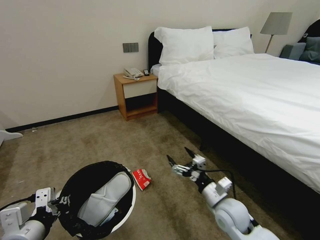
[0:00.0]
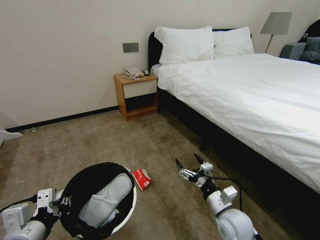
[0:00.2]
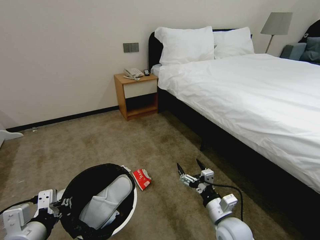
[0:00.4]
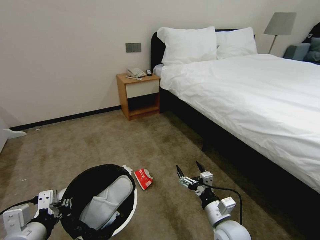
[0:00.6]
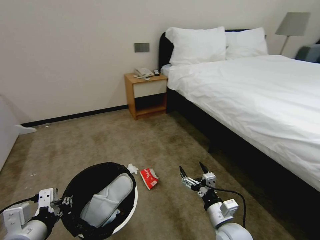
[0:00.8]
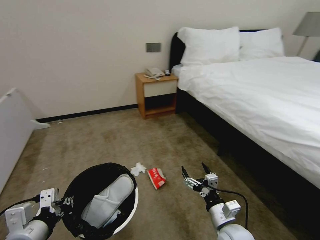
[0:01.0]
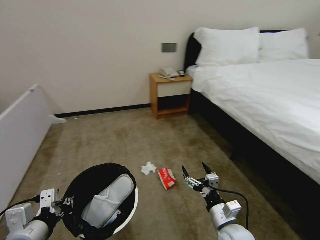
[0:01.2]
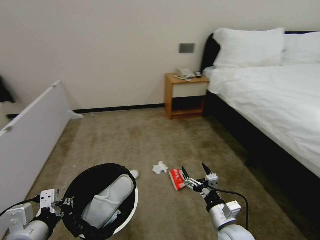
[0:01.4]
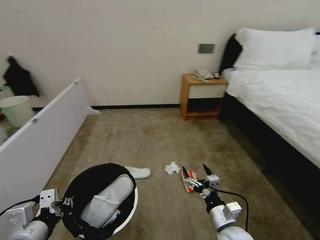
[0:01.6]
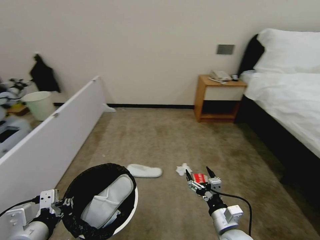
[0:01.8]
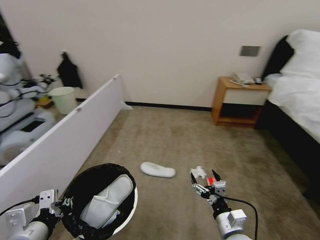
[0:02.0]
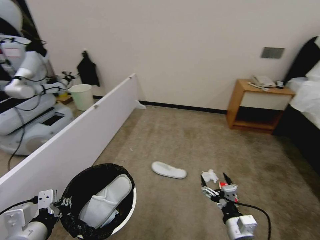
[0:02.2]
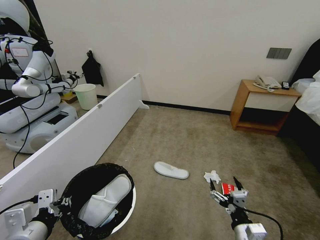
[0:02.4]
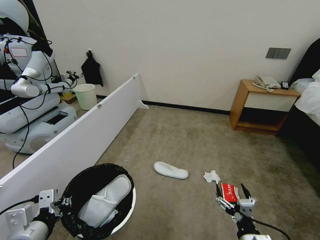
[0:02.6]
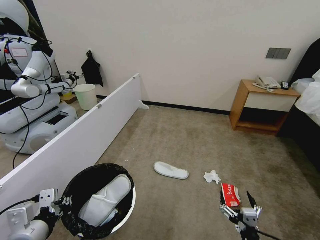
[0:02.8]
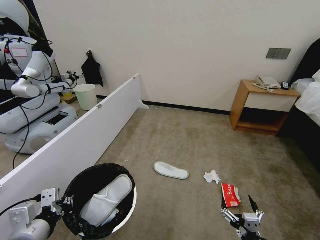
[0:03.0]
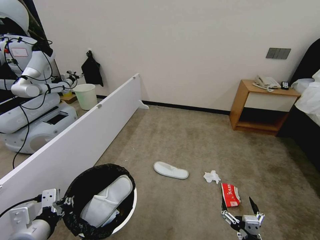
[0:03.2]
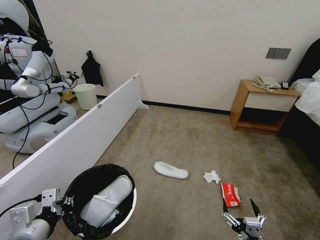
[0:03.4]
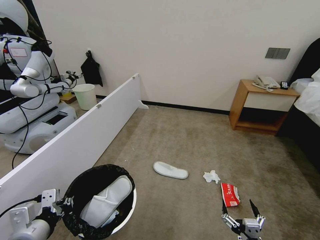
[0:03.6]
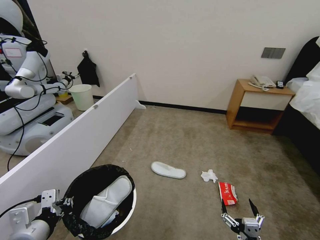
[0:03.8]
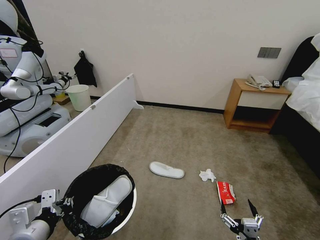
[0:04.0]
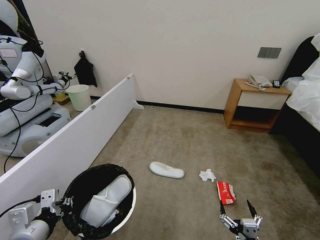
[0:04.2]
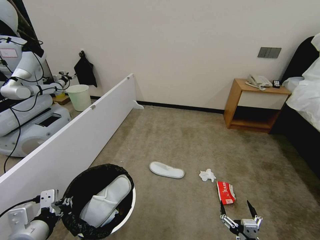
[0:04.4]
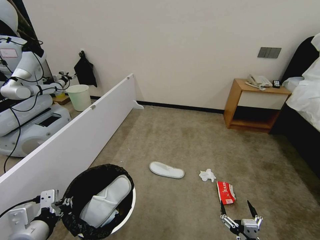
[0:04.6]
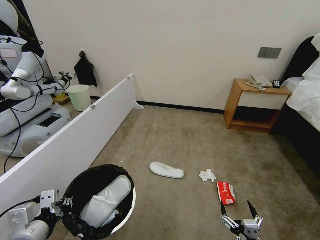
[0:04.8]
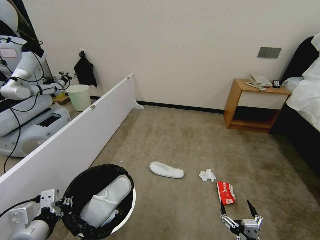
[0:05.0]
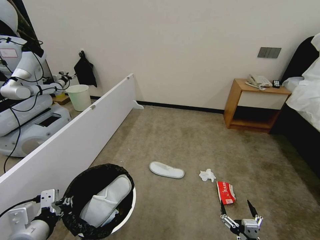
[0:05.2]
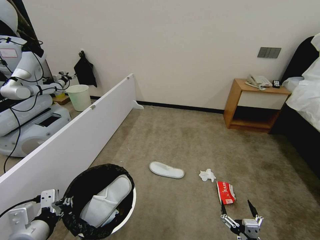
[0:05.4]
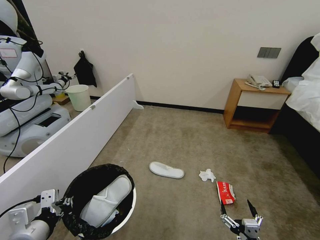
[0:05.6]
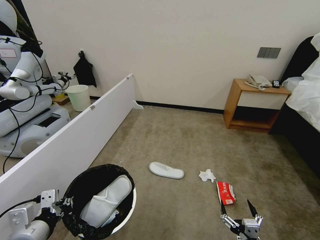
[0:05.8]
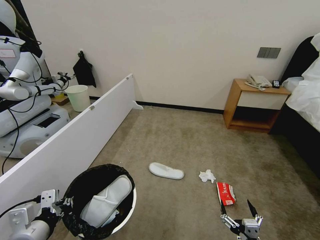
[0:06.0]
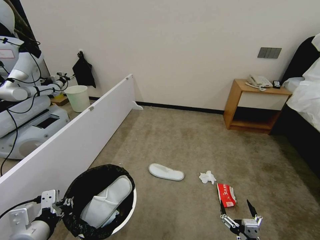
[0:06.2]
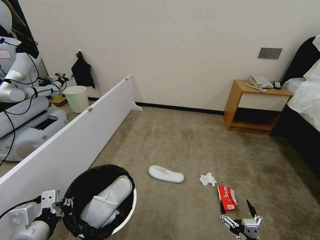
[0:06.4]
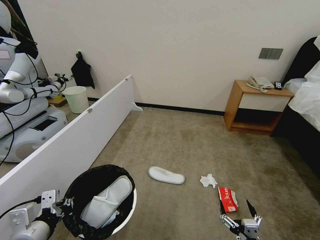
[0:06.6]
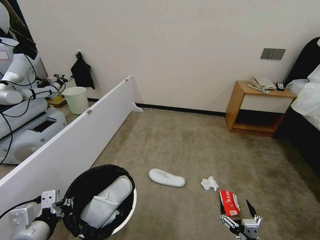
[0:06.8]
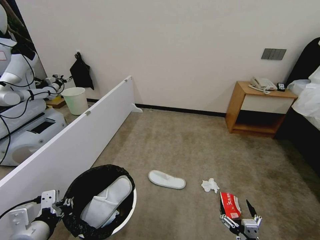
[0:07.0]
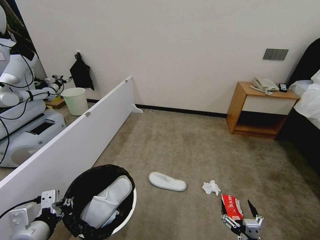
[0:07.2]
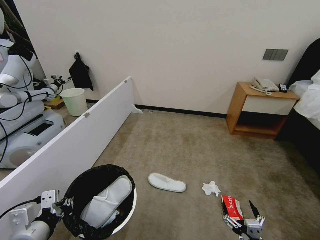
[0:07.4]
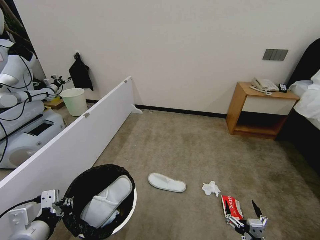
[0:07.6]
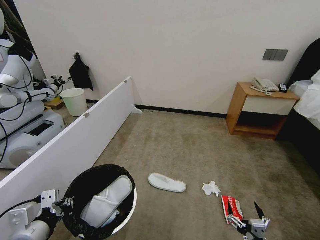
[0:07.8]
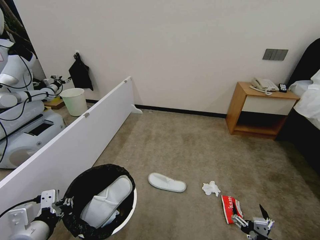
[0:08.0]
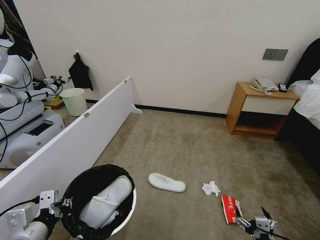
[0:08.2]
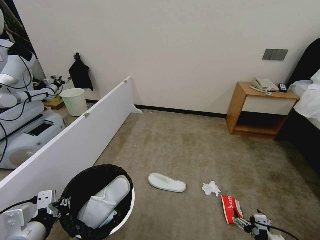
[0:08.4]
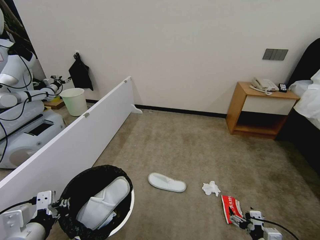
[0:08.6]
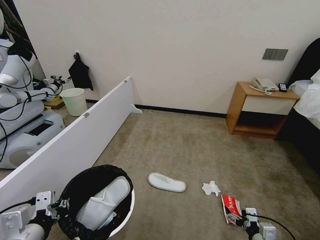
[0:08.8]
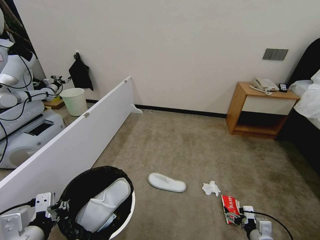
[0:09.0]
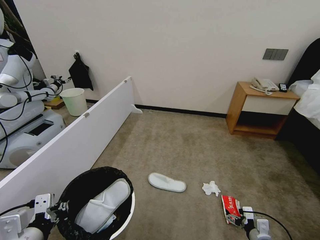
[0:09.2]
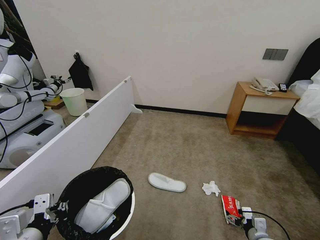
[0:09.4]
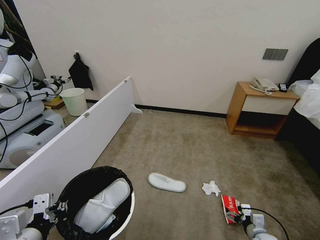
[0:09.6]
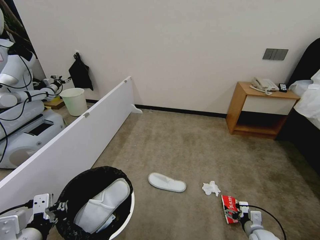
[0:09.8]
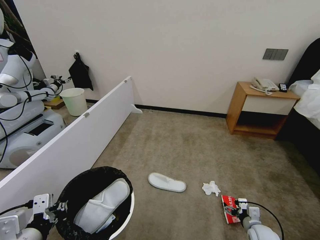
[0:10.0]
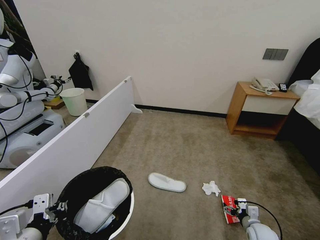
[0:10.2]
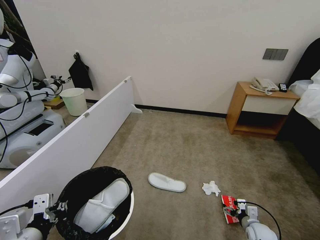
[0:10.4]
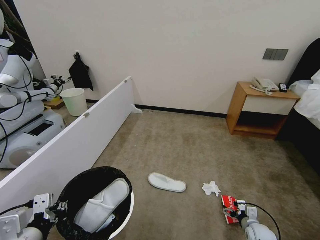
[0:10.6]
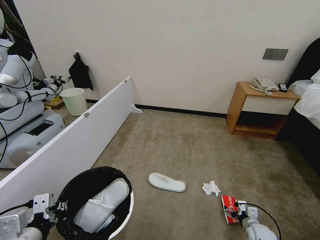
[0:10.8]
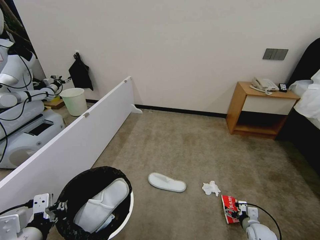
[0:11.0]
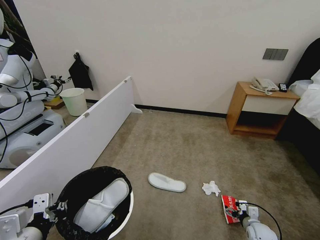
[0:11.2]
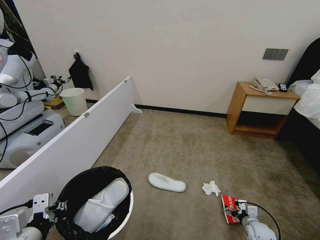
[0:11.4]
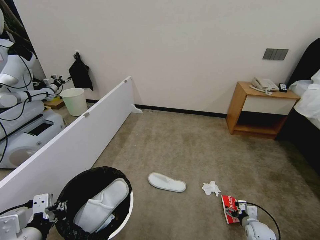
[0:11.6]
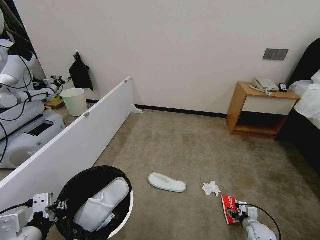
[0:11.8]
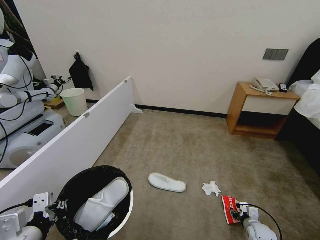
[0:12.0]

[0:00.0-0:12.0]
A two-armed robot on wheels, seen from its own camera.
Task of the whole recording: Pick up the trash bin, then pick up the garbage from the floor and place it into the trash bin.
0:00.0 to 0:01.6: The right gripper shifts about 5 cm backward.
0:01.6 to 0:03.0: The right gripper shifts some 15 cm backward and to the right.
0:03.0 to 0:04.4: The grippers make only small movements.
0:04.4 to 0:06.0: The two grippers keep their place.
0:06.0 to 0:07.6: The grippers stay close to where they were, moving slightly.
0:07.6 to 0:09.0: The right gripper moves forward and to the right, roughly 15 cm.
0:09.0 to 0:10.4: The right gripper goes about 10 cm forward and downward.
0:10.4 to 0:12.0: The right gripper closes.

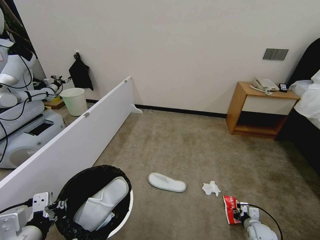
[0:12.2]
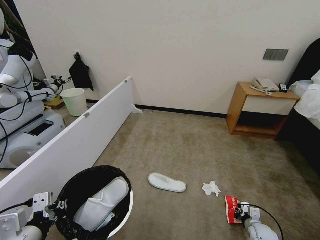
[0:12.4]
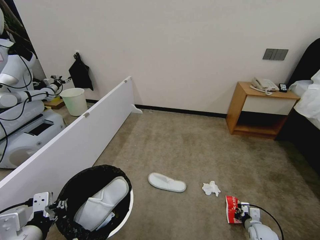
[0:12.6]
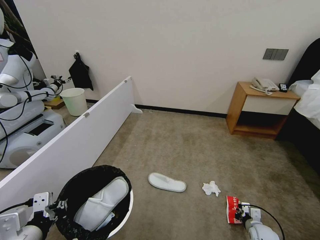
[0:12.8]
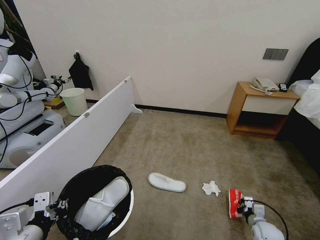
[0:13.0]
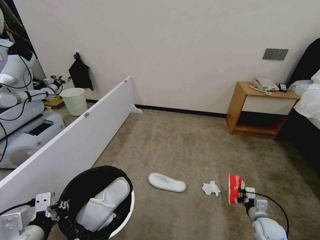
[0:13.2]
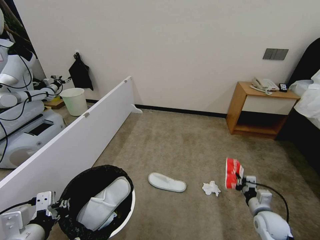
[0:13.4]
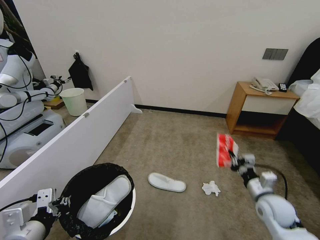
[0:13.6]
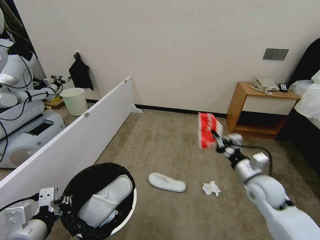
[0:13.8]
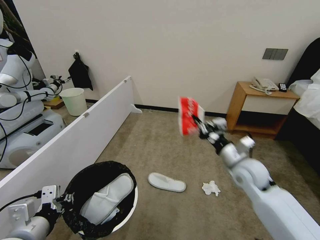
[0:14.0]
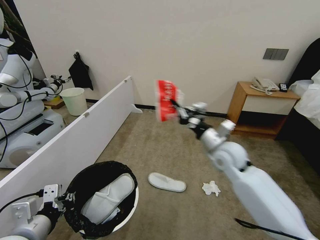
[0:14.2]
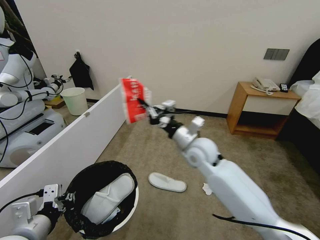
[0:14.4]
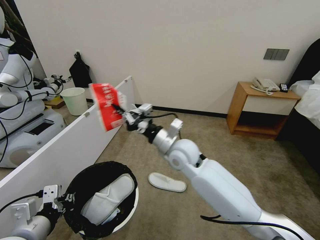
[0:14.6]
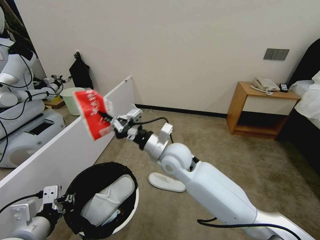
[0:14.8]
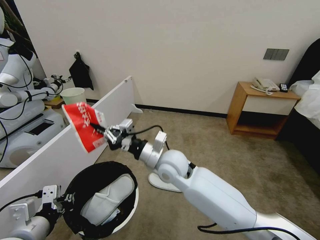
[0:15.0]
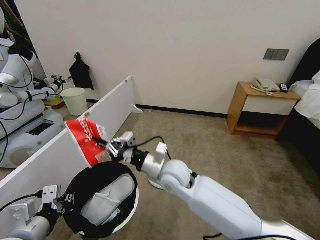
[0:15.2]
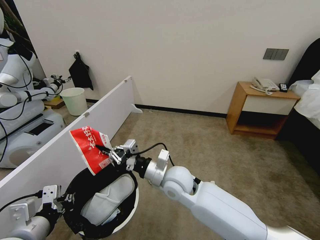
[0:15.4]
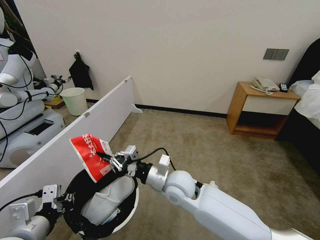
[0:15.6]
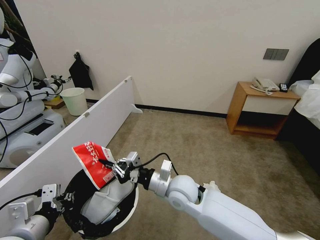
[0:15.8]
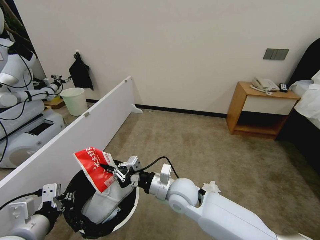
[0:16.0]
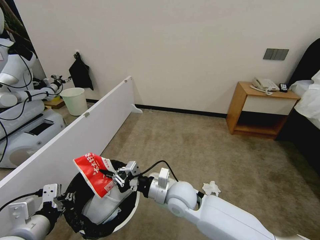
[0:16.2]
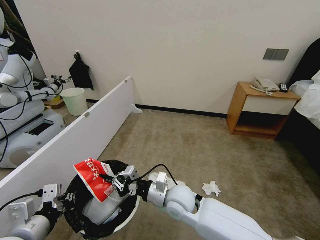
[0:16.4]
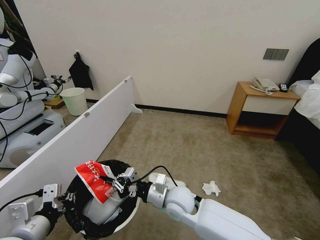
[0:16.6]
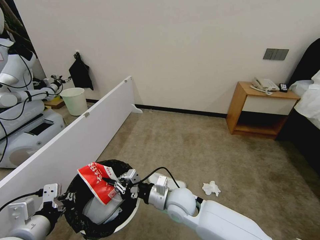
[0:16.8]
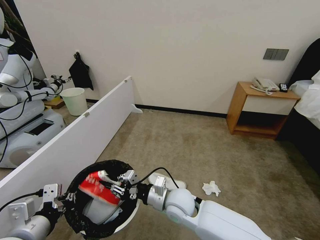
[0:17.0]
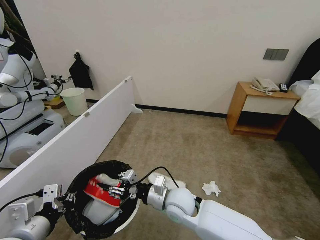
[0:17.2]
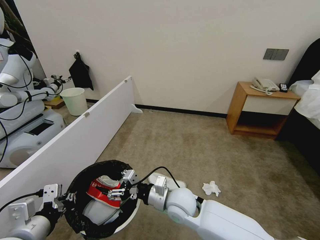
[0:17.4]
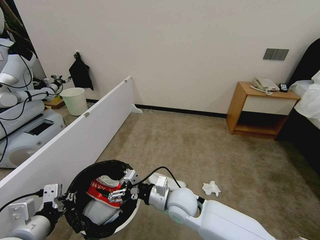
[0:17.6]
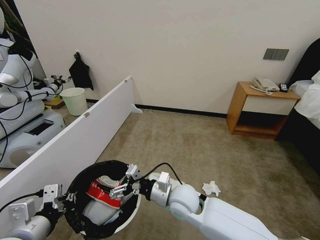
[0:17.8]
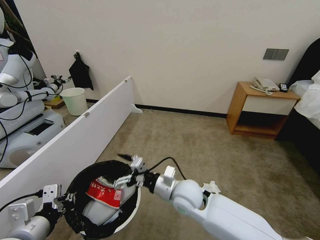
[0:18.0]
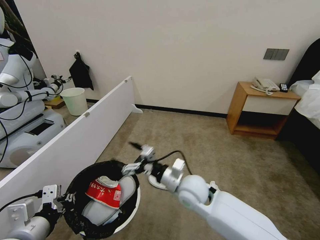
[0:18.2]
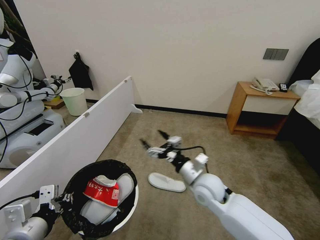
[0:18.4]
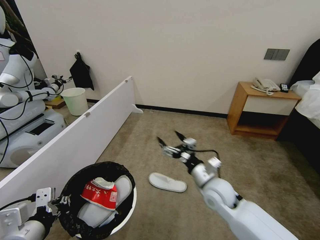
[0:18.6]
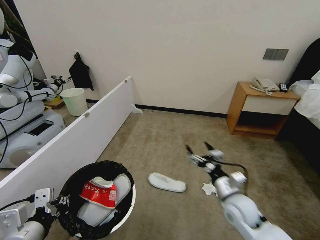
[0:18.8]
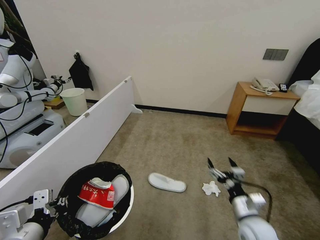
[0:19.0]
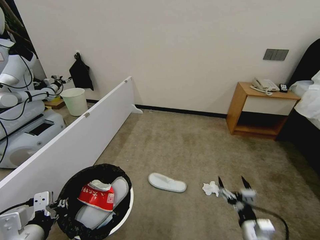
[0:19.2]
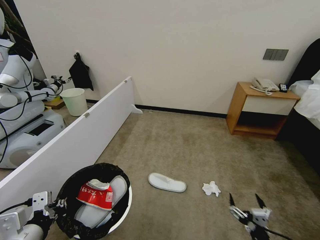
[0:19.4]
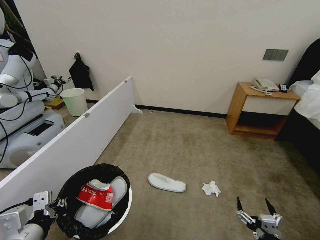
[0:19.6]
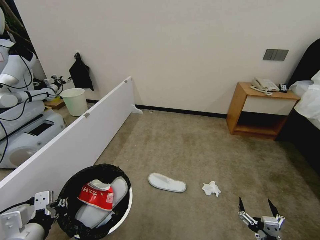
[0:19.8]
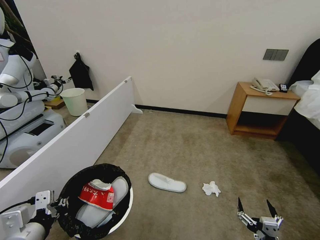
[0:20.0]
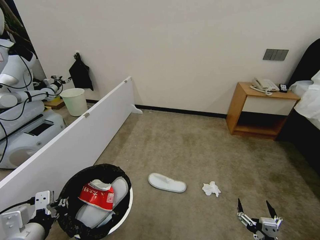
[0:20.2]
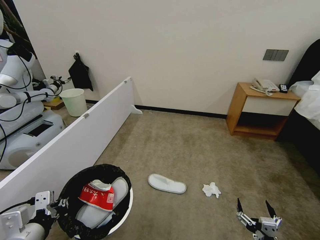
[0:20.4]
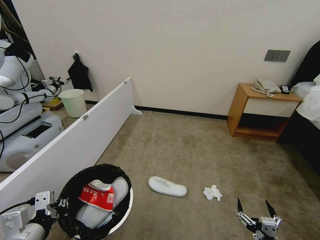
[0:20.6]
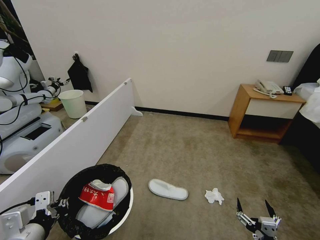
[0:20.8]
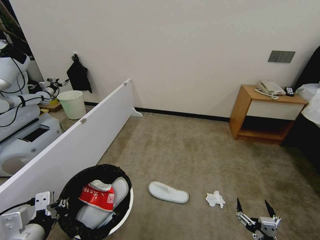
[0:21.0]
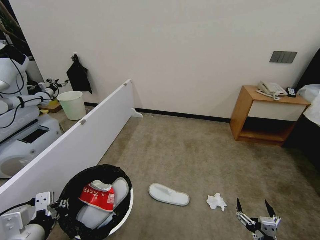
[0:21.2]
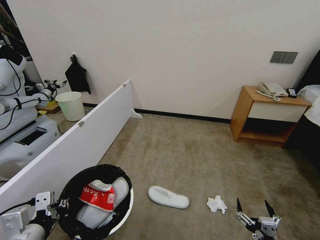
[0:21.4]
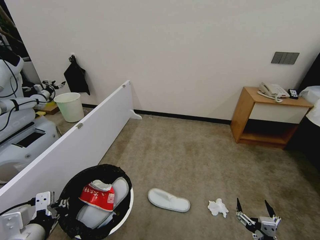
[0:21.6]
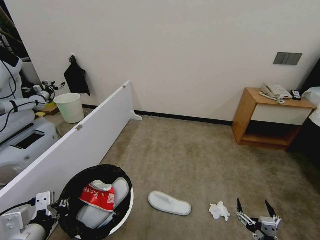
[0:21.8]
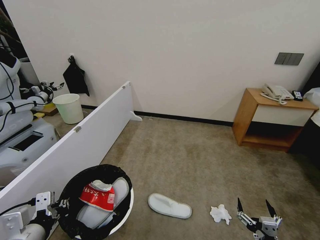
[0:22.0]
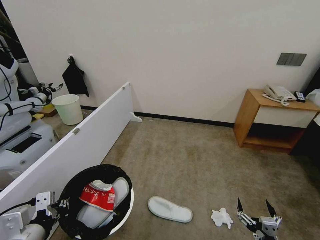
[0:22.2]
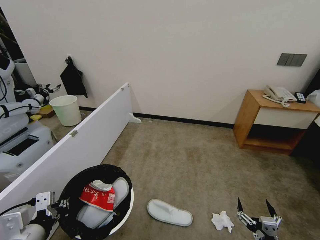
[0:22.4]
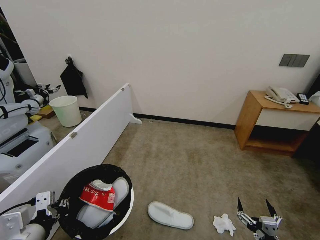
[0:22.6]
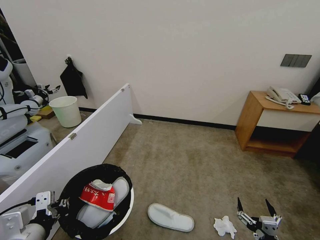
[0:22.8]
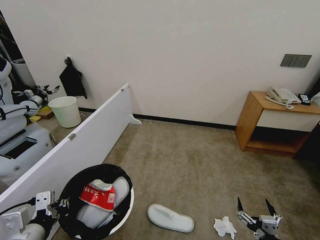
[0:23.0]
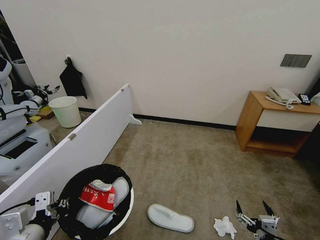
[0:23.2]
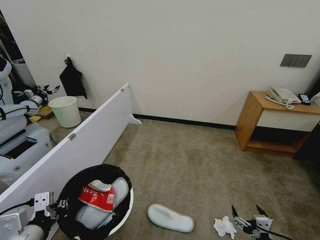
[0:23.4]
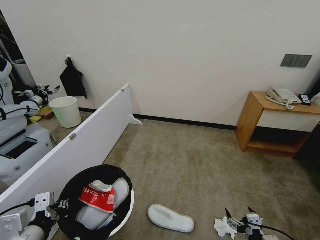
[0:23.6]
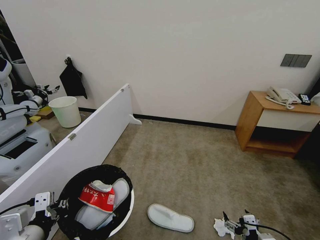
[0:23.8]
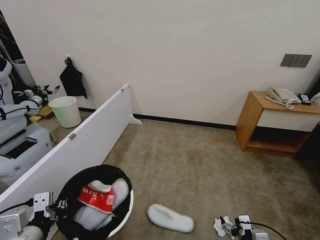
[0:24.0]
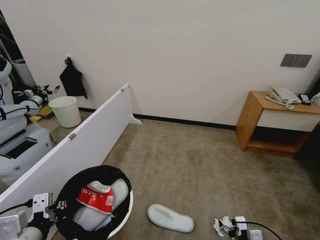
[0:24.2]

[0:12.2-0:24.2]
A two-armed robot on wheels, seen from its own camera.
Task of the whole recording: Pick up the trash bin, then pick up the garbage from the floor and place it into the trash bin.
0:12.2 to 0:13.8: The right gripper is displaced upward by some 25 cm.
0:13.8 to 0:15.2: The right gripper is displaced to the left by about 30 cm.
0:15.2 to 0:16.6: The right gripper moves downward, about 10 cm.
0:16.6 to 0:18.2: The right gripper opens up.
0:18.2 to 0:19.8: The right gripper shifts approximately 35 cm to the right, backward and downward.
0:19.8 to 0:21.2: The two grippers keep their place.
0:22.6 to 0:24.2: The right gripper is displaced forward by roughly 5 cm.
